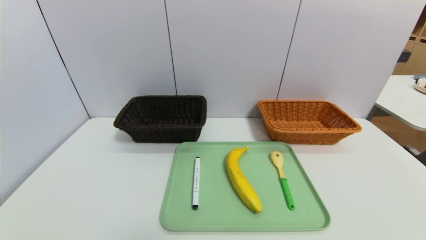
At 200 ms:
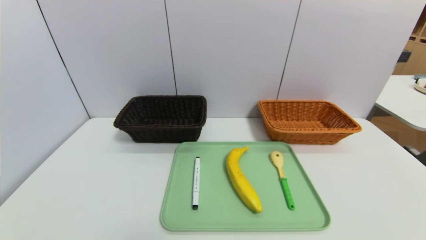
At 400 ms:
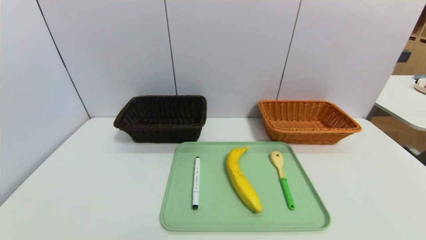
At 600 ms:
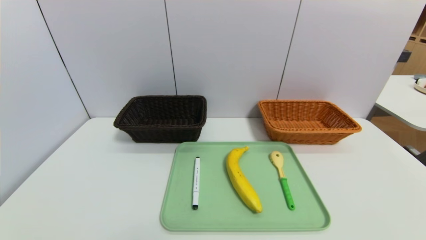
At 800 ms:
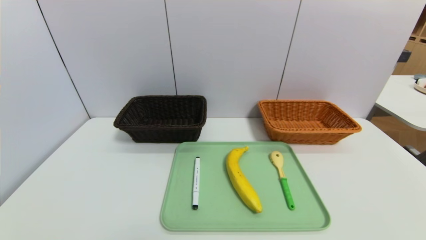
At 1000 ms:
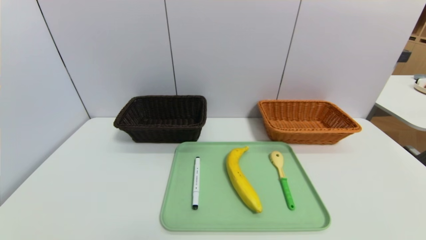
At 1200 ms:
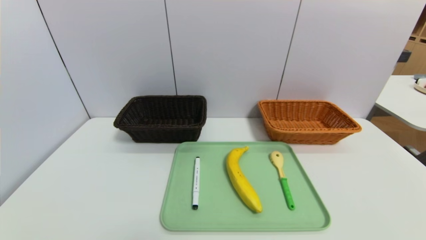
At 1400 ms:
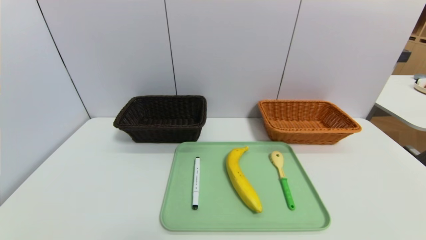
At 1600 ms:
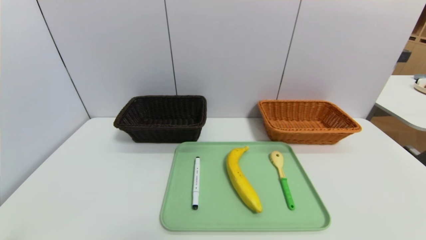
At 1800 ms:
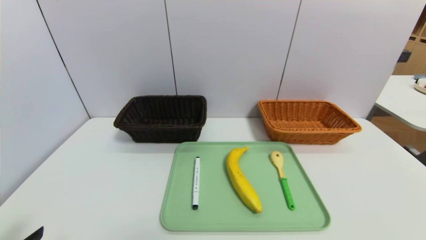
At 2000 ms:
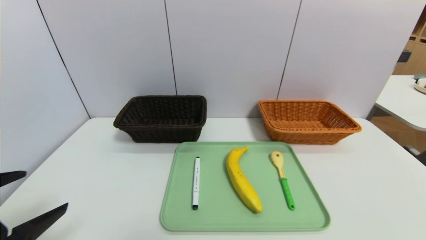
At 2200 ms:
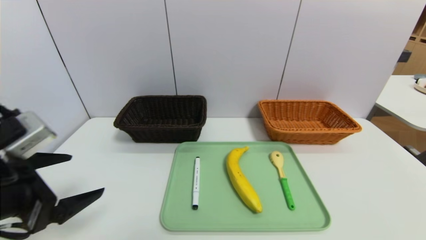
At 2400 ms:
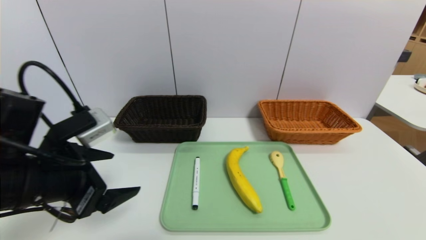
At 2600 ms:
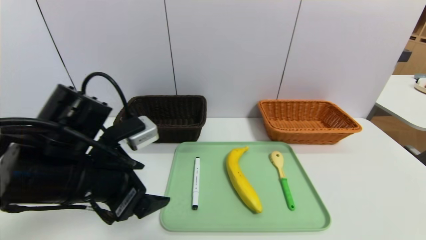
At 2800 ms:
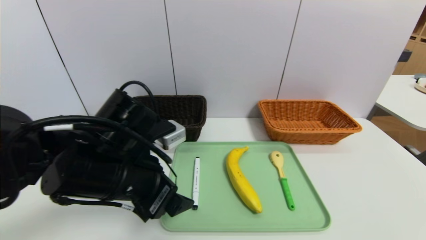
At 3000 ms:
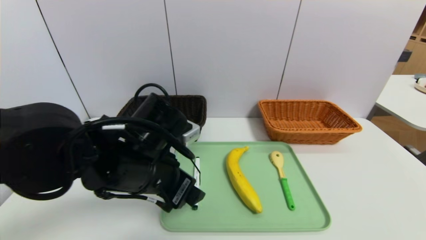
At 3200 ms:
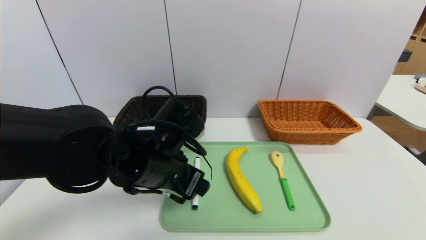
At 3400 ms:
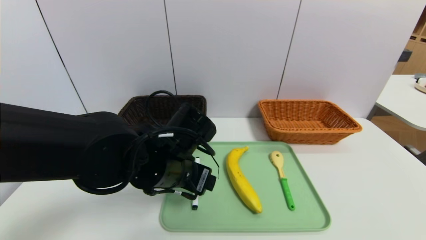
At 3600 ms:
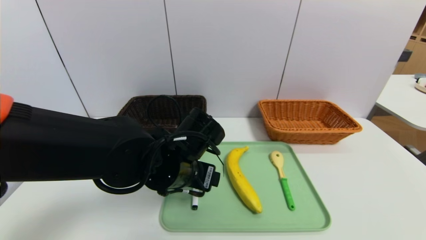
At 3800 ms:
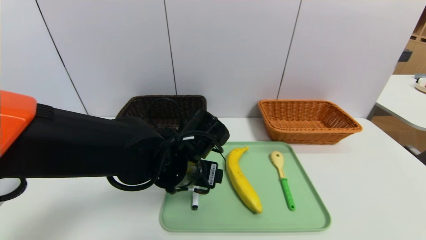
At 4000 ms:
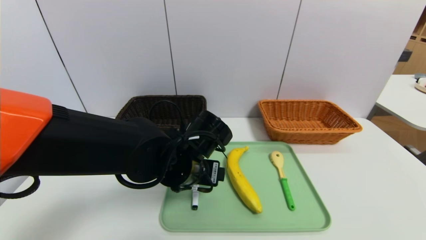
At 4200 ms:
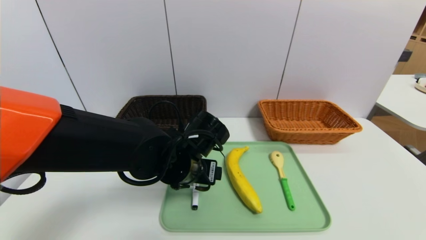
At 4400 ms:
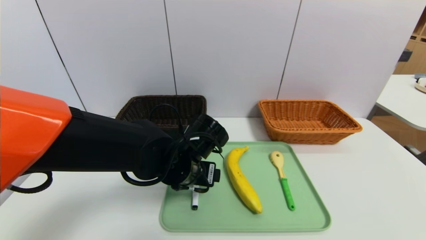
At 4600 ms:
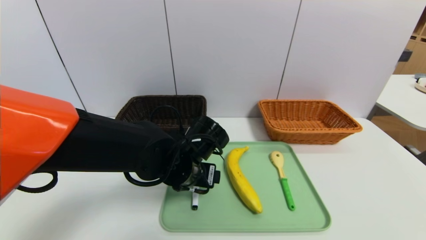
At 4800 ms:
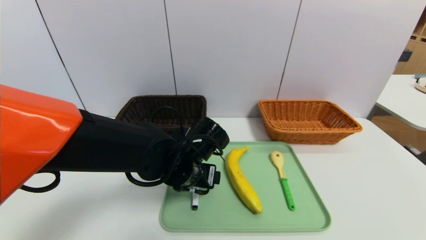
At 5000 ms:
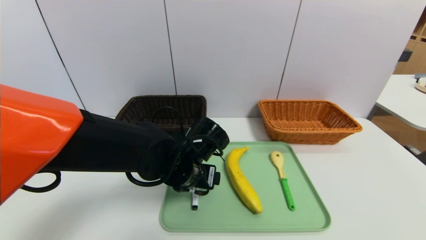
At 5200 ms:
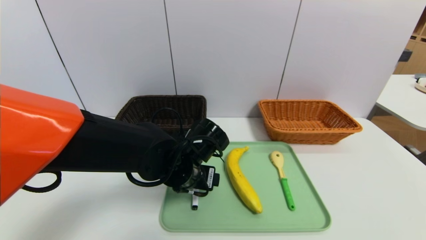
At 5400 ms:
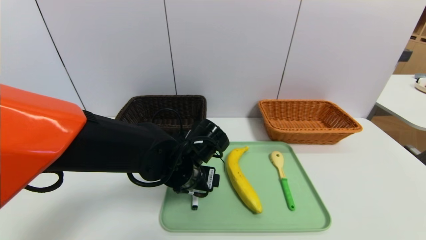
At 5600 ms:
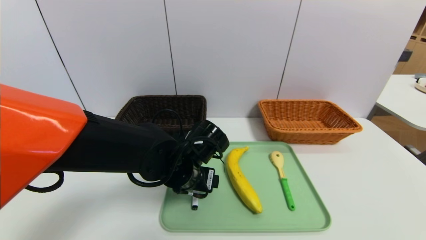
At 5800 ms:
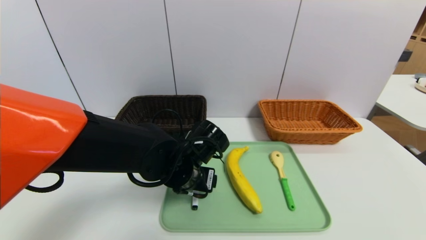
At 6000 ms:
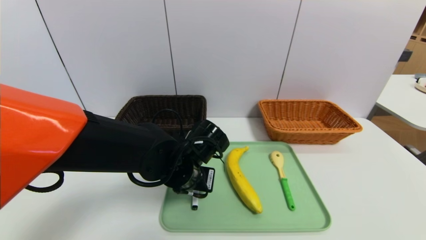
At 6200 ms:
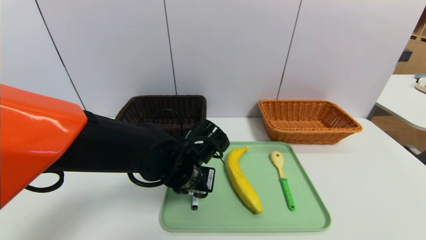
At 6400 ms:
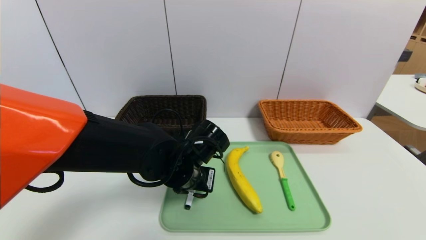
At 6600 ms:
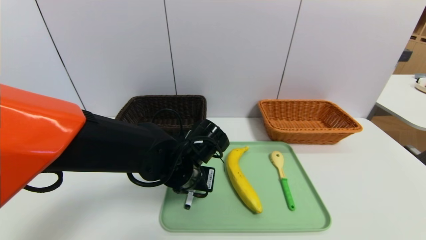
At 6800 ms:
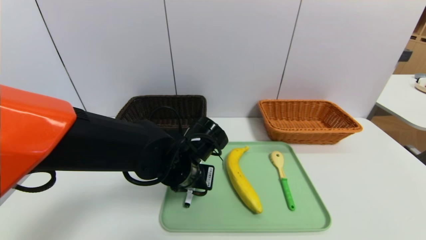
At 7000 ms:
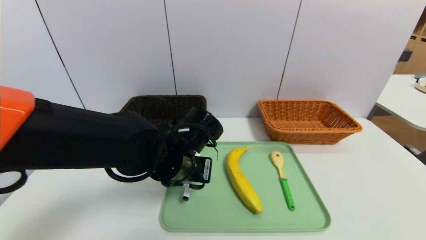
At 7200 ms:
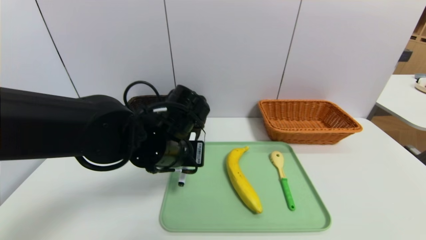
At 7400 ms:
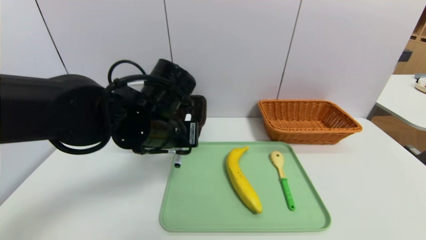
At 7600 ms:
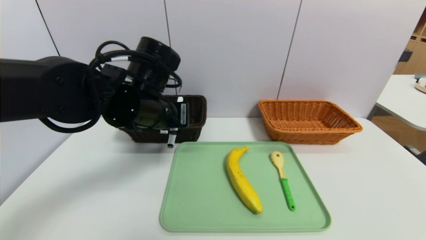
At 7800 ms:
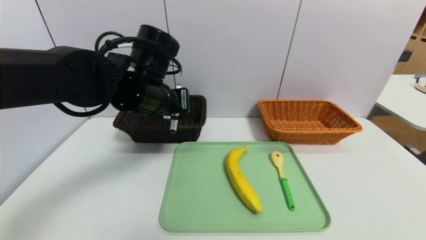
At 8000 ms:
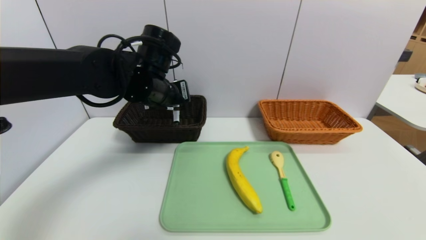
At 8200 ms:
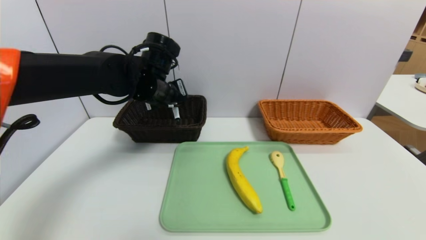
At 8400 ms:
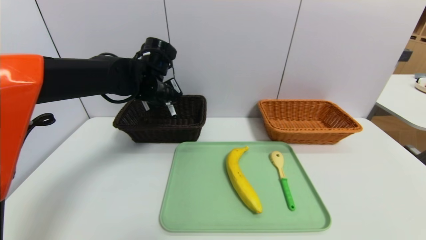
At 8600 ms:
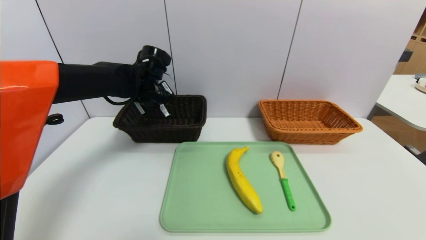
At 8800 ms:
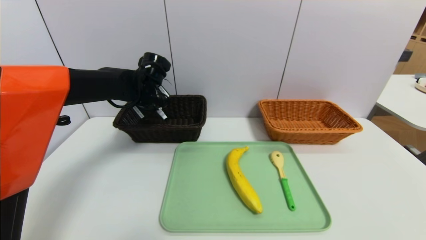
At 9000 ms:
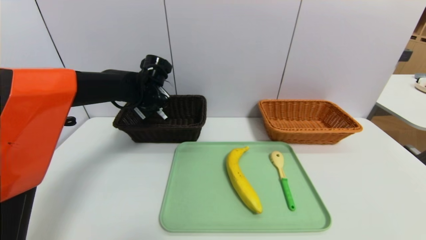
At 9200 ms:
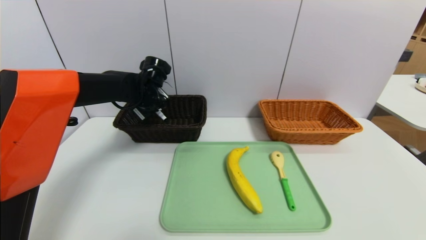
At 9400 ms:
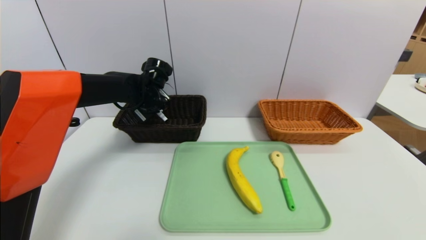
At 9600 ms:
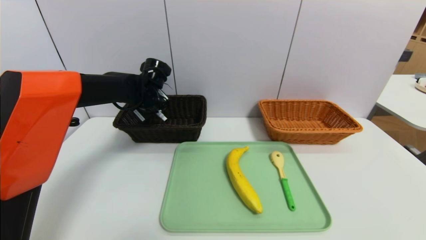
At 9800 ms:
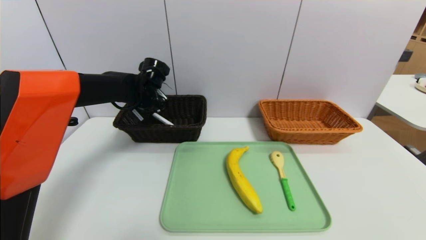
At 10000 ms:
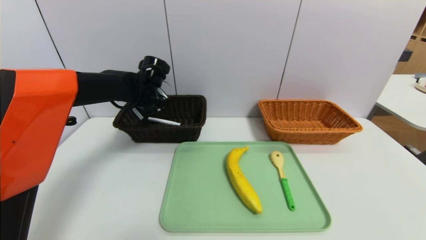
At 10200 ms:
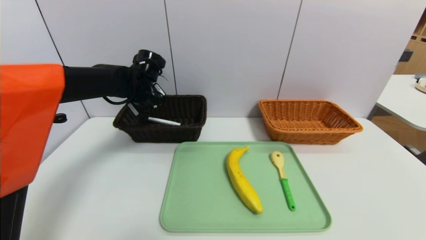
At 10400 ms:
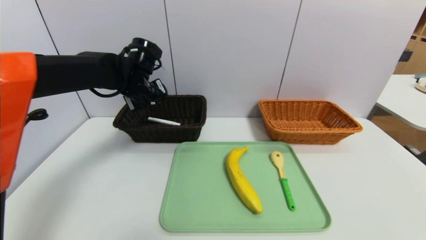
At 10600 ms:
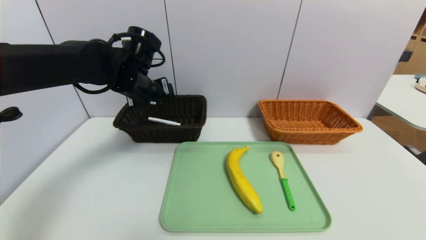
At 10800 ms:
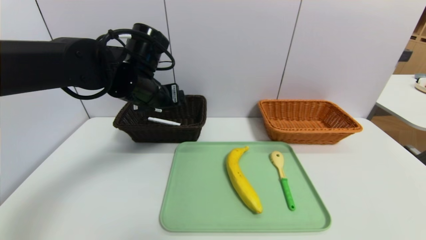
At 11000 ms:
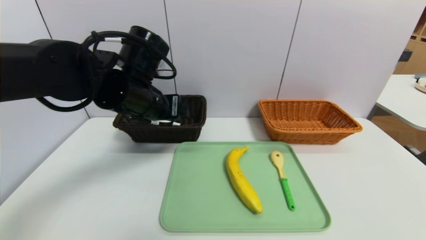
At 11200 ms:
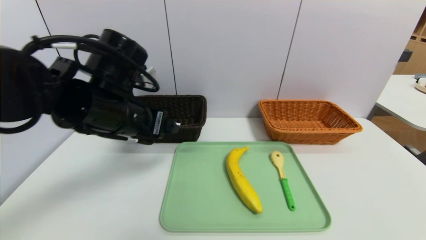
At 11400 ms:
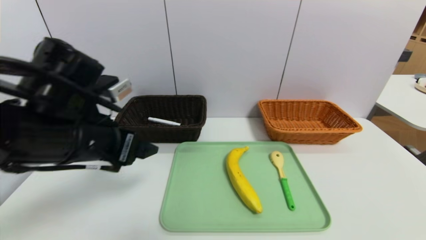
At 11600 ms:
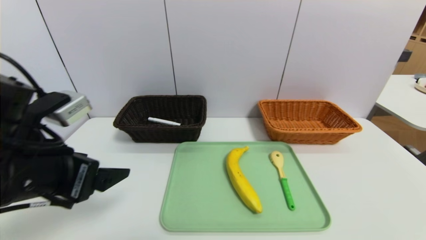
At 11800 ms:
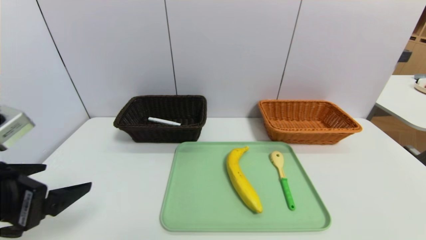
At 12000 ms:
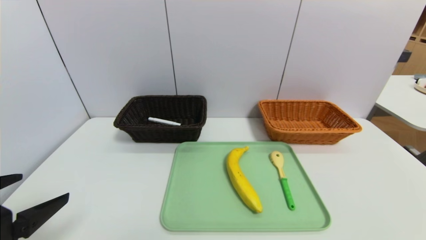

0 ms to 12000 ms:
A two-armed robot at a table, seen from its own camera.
Task of the whole recording: place the food in the right basket with the right gripper, and place the non food items in the left basket with the left gripper.
Step, 0 ms to 10000 ms: Grasp the black marker and put it in the left basket.
1600 ms to 3000 ms: The left gripper goes about 30 cm forward and to the right.
3000 ms to 4400 ms: The left gripper travels downward, to the right and forward by approximately 10 cm.
4400 ms to 6000 ms: The left gripper closes its fingers.
6000 ms to 7600 ms: The left gripper goes about 15 cm upward and to the left, and closes.
7600 ms to 9000 ms: The left gripper travels forward by some 15 cm.
9000 ms to 10400 ms: The left gripper opens.
10400 ms to 12000 ms: The left gripper goes roughly 35 cm backward.

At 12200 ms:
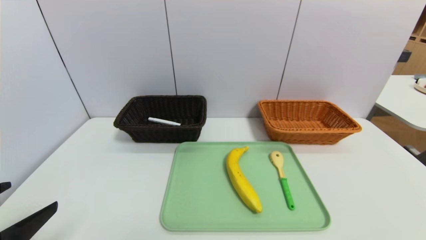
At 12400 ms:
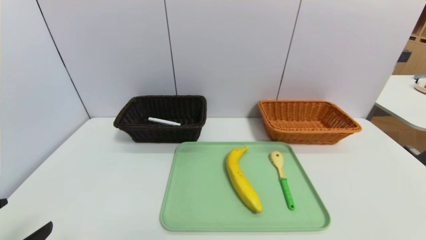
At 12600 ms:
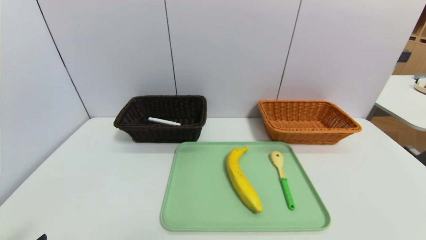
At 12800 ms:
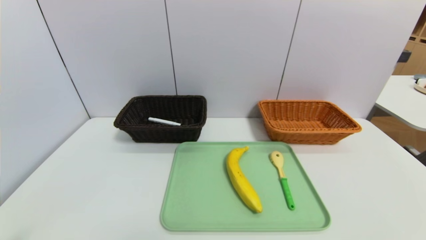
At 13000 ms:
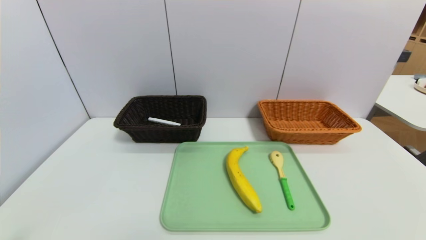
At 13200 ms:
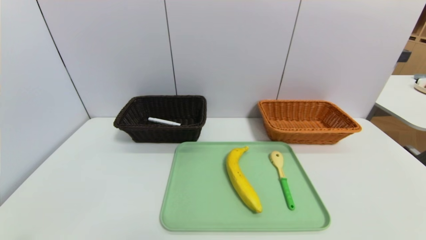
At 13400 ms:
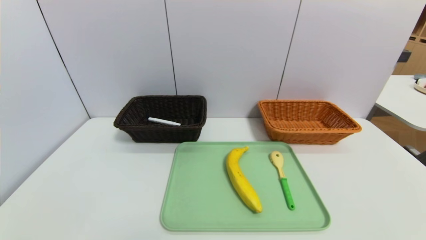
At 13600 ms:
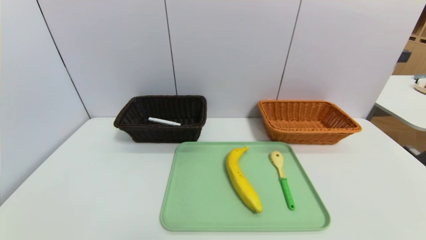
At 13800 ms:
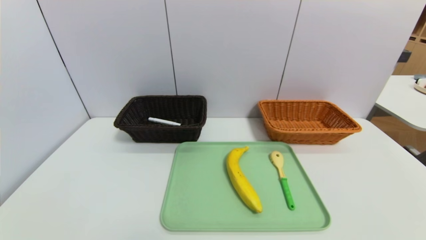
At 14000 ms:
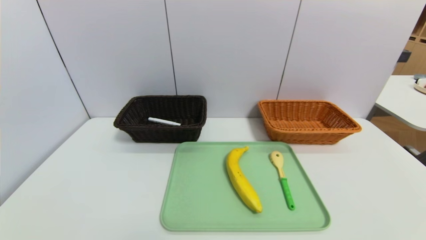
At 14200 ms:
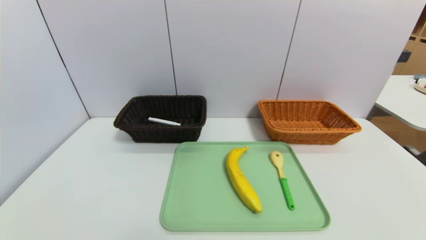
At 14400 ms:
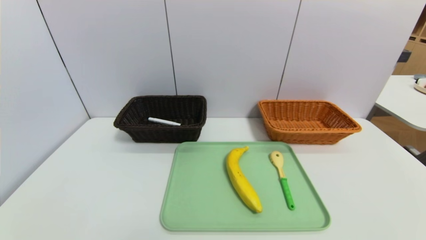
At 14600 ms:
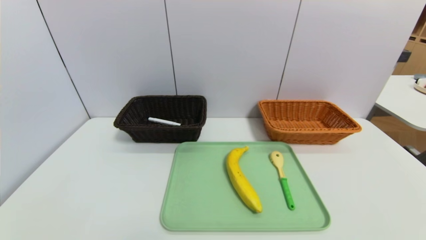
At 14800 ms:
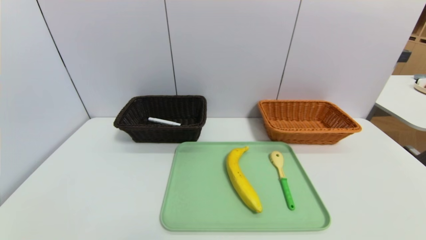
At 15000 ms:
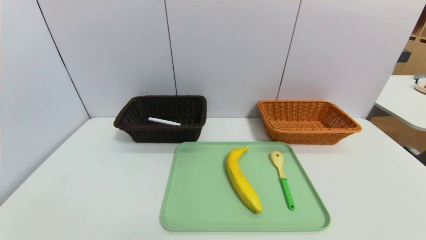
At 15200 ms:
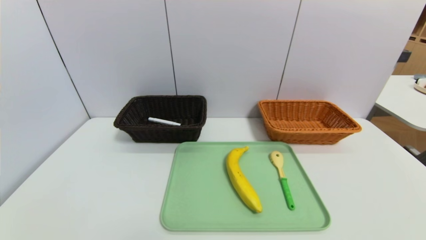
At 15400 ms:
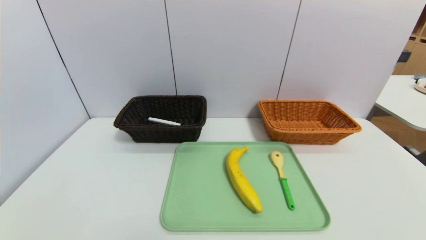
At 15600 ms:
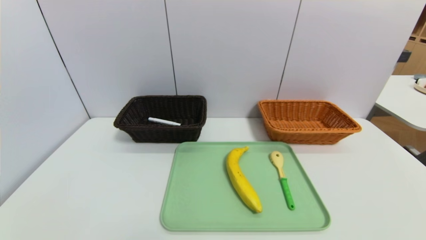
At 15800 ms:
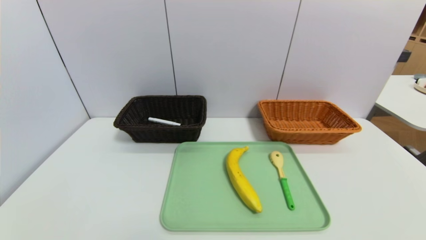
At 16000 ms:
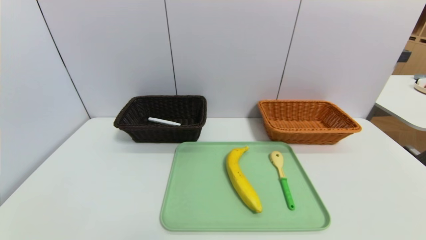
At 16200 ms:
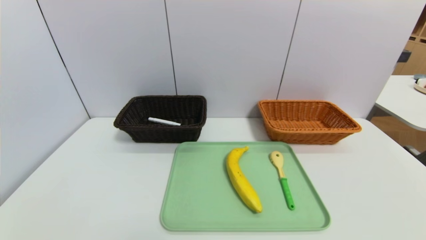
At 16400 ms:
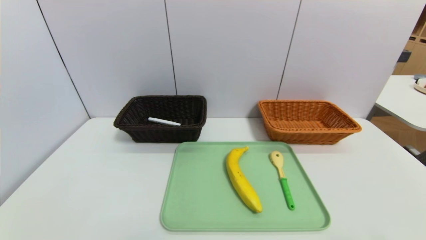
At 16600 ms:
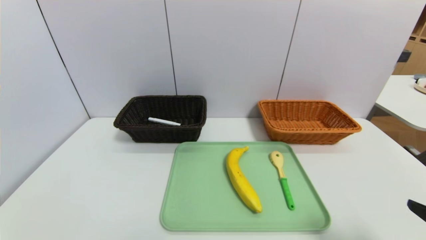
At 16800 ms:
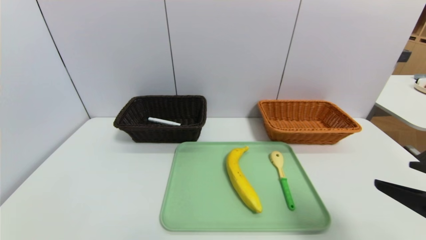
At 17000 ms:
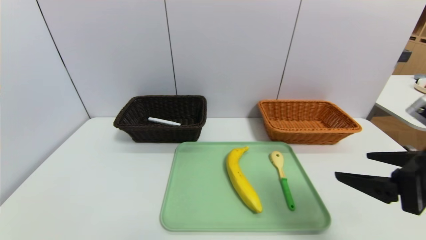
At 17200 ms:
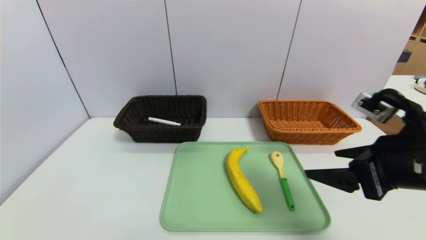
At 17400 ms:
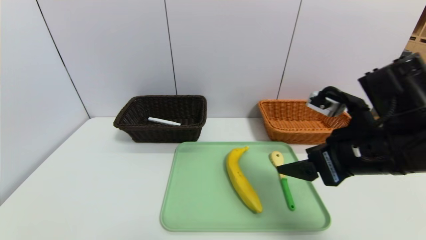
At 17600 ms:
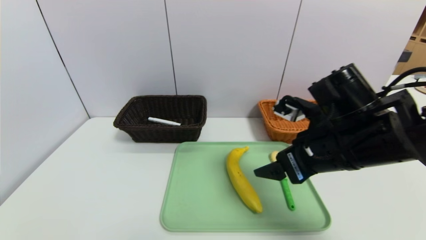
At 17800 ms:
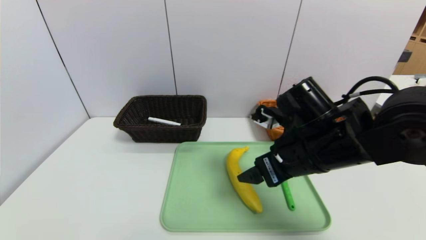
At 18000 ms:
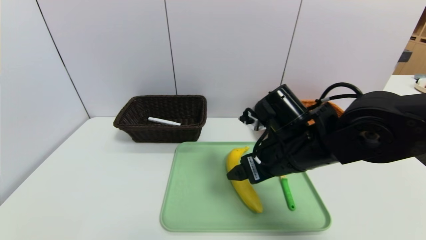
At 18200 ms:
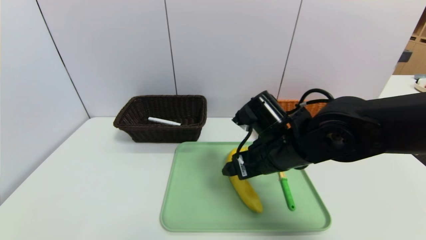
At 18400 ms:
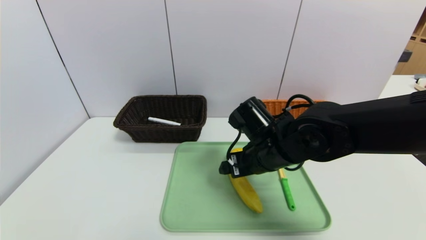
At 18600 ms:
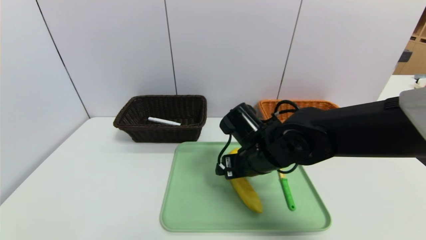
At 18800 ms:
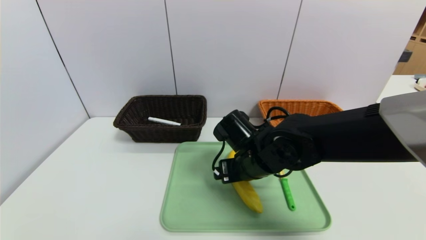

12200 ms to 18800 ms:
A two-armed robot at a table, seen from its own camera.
Task of the whole recording: place the food in the right basket with the right gripper, and place the non food items in the left basket with the left gripper.
12200 ms to 13800 ms: The left gripper moves downward and backward, about 15 cm.
13800 ms to 15400 ms: Both grippers stay about where they are.
15400 ms to 17200 ms: The right gripper goes roughly 25 cm forward, upward and to the left.
17200 ms to 18800 ms: The right gripper travels to the left, forward and downward by about 25 cm.
